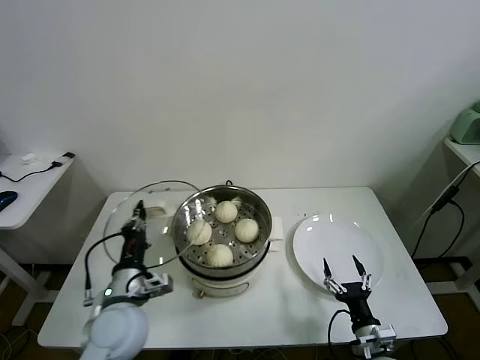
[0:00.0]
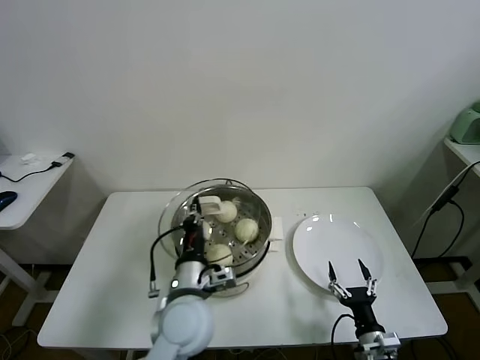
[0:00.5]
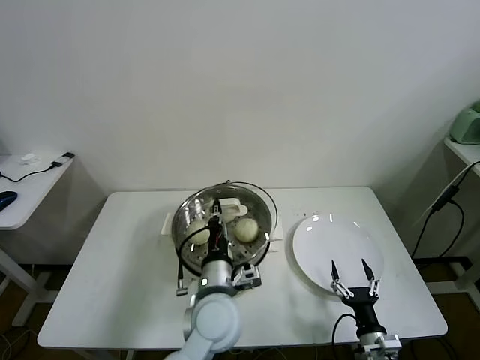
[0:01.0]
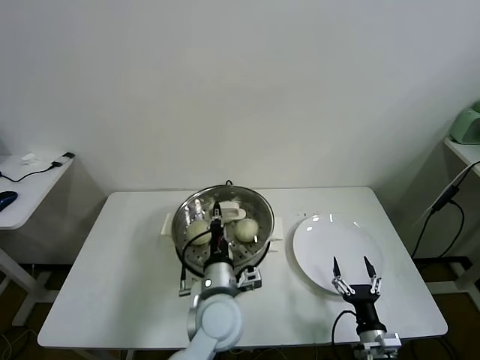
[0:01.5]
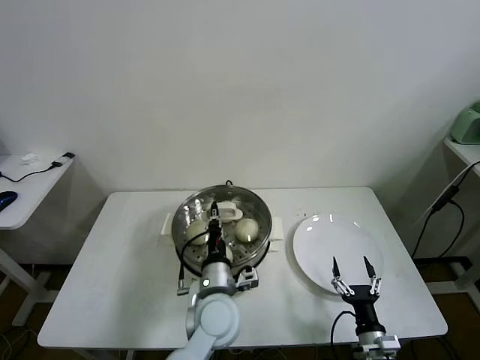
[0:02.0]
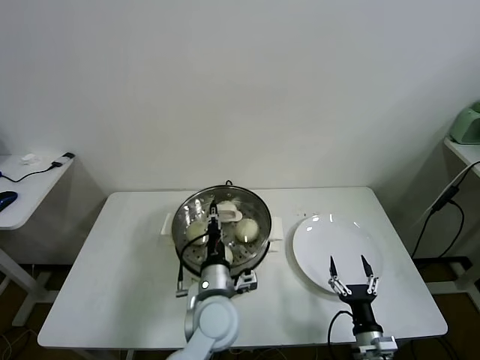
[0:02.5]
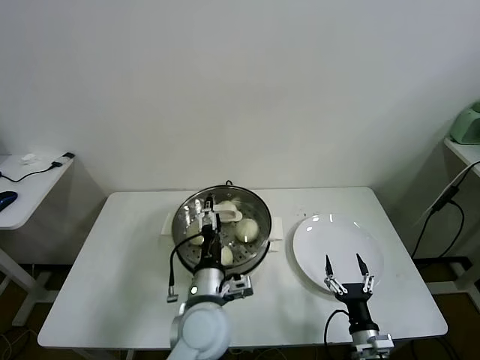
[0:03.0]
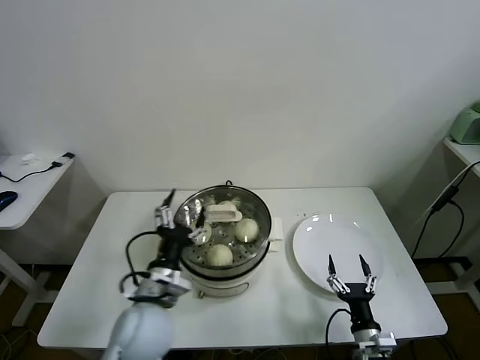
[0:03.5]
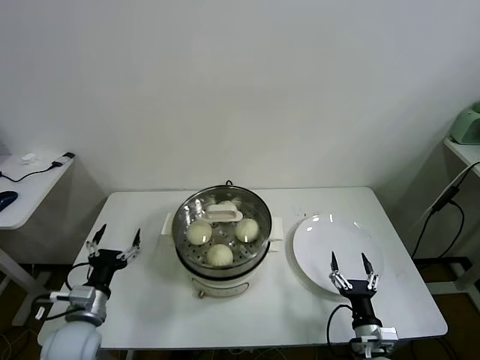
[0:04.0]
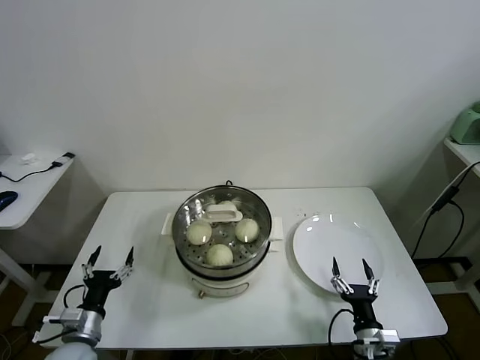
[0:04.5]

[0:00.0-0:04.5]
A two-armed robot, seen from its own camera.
Task of the whole recording: take steamed baozi put them in steamer.
Step, 0:00.0 to 0:02.5: Place the pot lid on the steamer with left gripper.
0:00.0 to 0:02.0: The left gripper heads to the right, covering approximately 20 cm.
0:02.0 to 0:04.5: The left gripper moves to the left, roughly 30 cm, and opens up.
